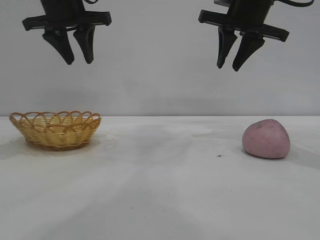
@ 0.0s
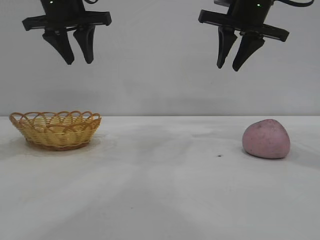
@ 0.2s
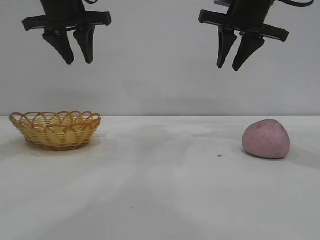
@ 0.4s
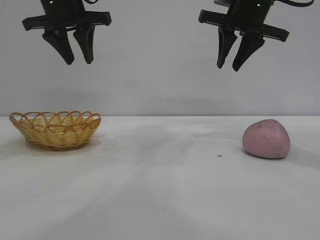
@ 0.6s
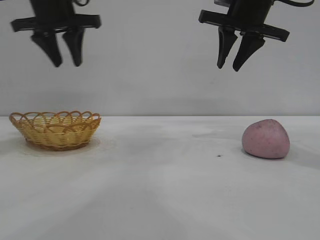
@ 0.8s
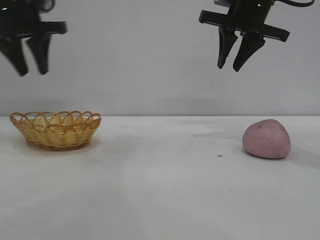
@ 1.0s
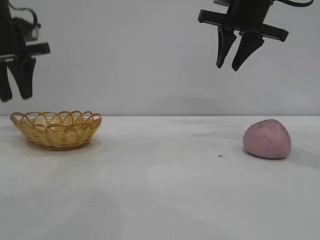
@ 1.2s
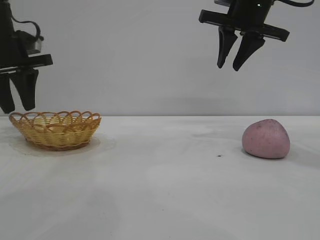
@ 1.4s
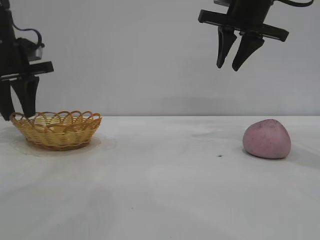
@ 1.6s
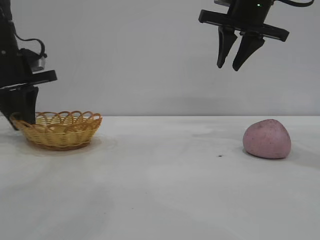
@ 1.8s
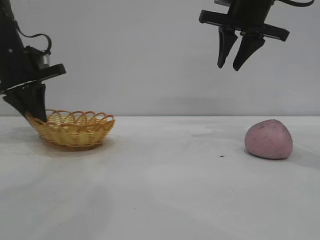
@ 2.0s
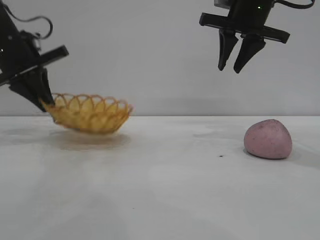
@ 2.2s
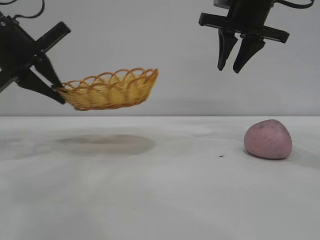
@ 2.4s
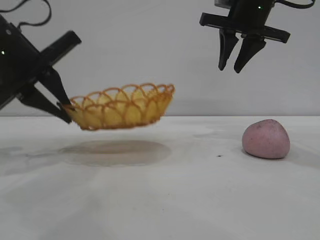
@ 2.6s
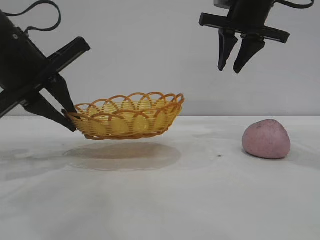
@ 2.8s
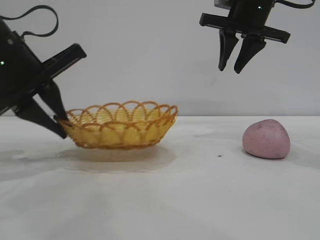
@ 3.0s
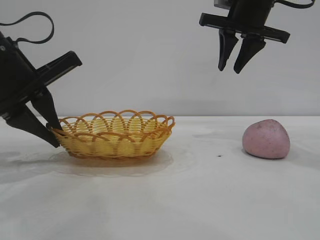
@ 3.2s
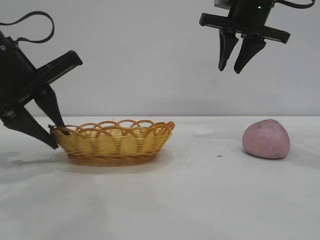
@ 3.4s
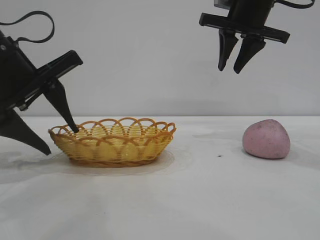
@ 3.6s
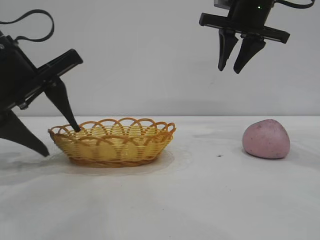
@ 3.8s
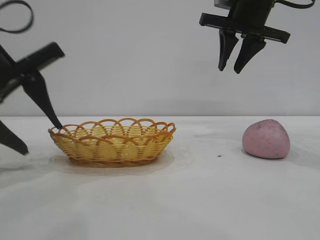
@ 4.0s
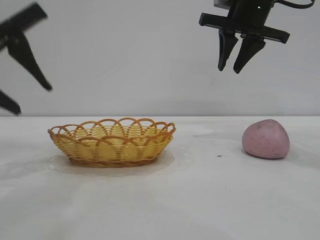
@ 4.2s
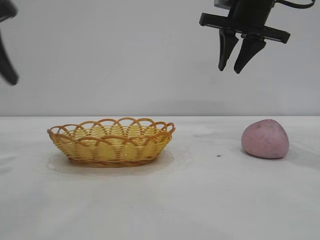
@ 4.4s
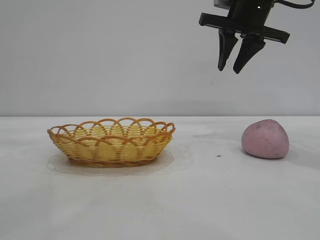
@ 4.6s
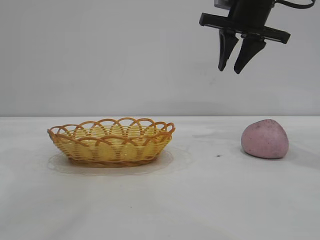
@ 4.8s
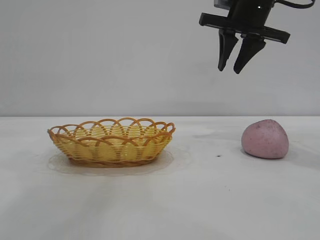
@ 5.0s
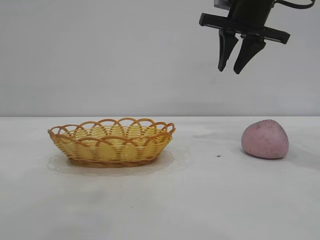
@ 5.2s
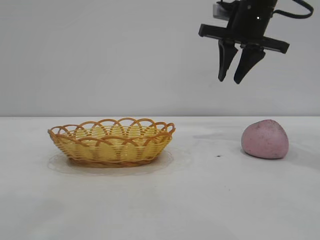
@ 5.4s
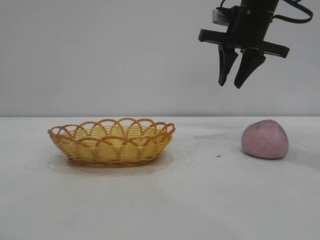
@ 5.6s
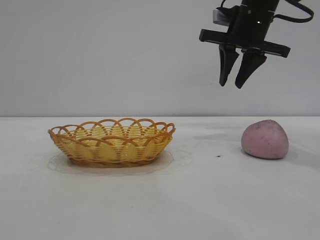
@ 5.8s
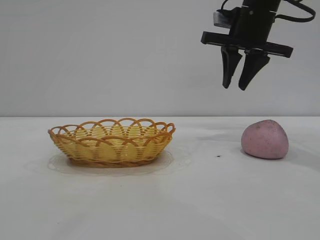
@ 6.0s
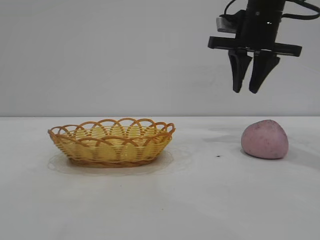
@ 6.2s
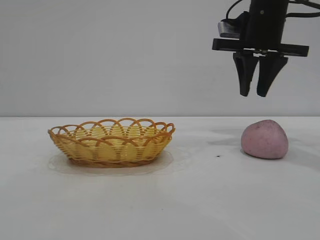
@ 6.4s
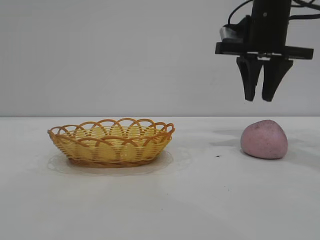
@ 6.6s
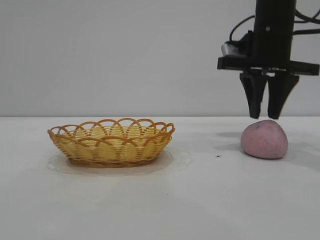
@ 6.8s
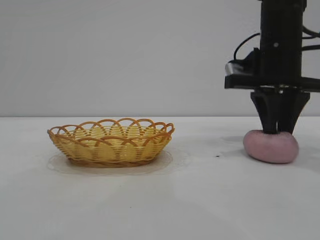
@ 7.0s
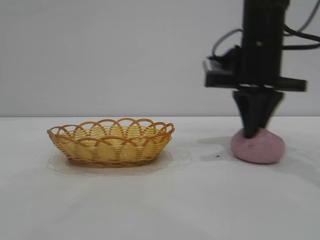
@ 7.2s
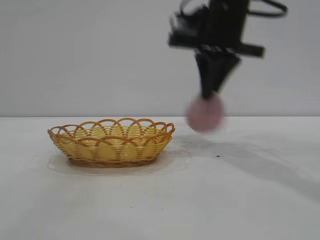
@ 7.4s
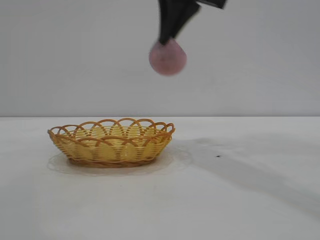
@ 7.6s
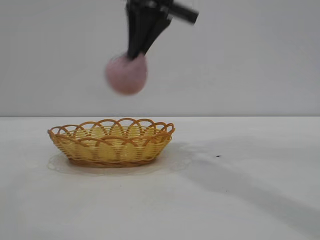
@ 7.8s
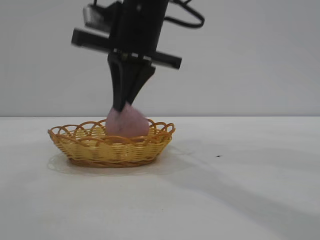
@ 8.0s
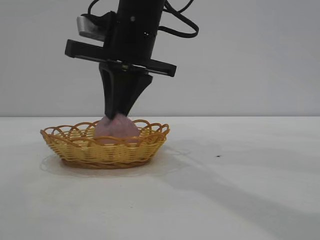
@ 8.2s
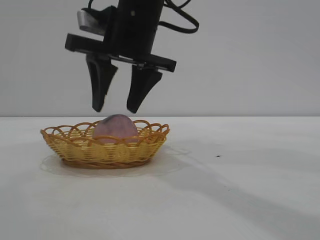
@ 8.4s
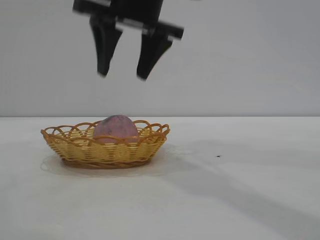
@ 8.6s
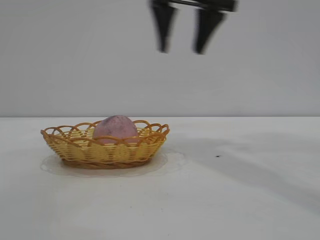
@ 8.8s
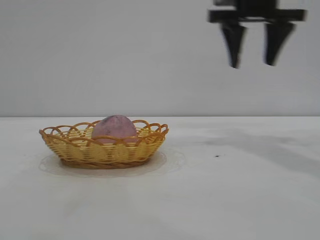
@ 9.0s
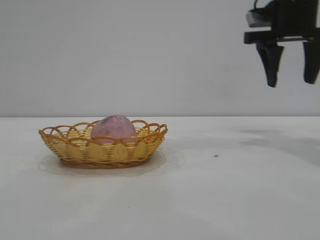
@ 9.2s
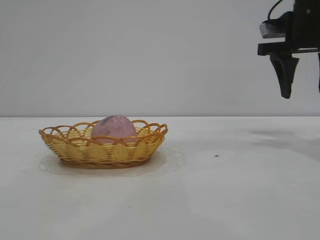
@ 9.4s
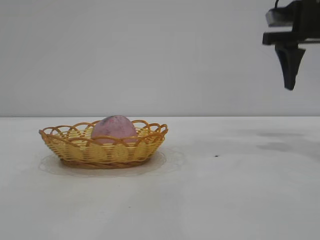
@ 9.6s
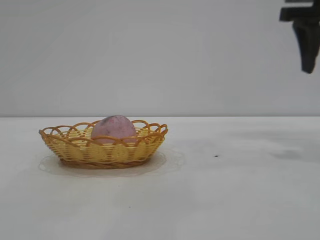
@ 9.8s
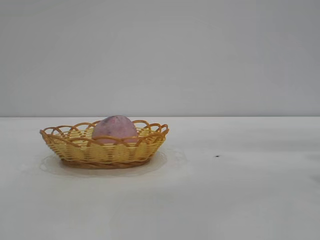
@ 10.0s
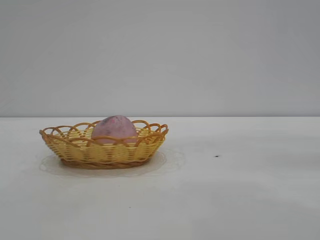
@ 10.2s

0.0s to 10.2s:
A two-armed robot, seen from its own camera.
Task of the whole recording: pick up the peach and put it into the basket.
Step, 0.0s to 4.2s: Move the basket to the center of view.
Step, 4.4s to 7.2s: Pick up the peach.
Step, 7.6s to 8.6s: place the peach into the basket.

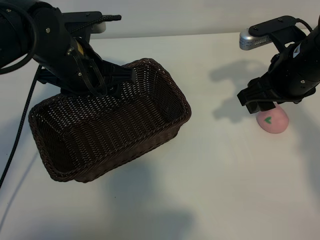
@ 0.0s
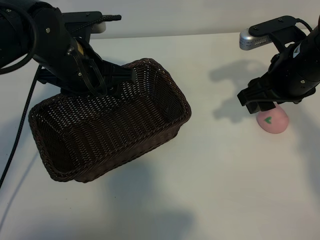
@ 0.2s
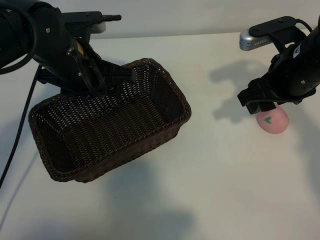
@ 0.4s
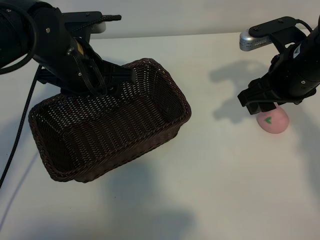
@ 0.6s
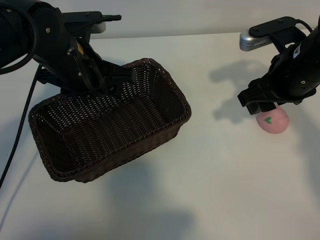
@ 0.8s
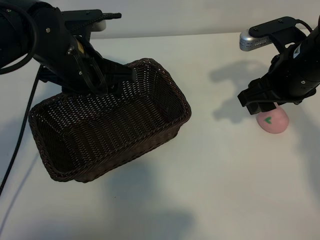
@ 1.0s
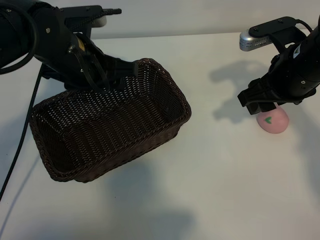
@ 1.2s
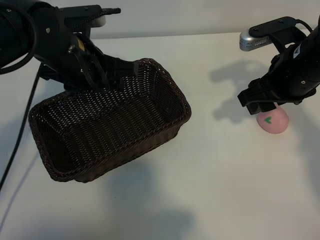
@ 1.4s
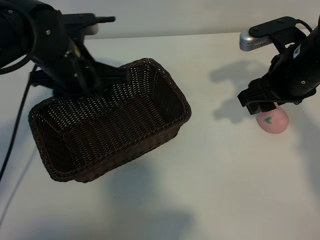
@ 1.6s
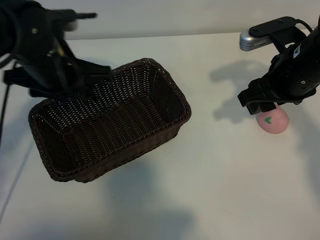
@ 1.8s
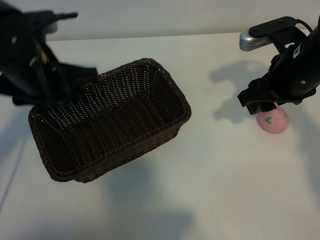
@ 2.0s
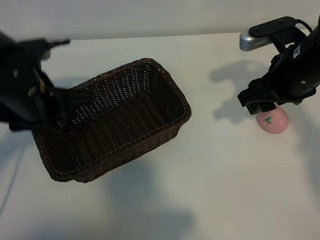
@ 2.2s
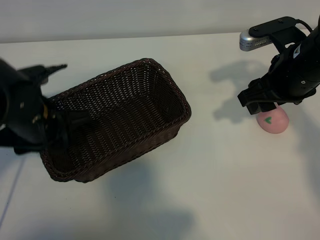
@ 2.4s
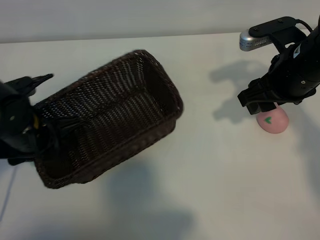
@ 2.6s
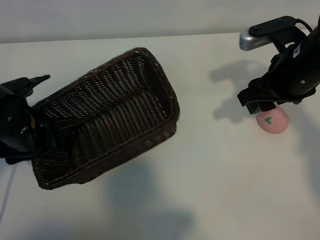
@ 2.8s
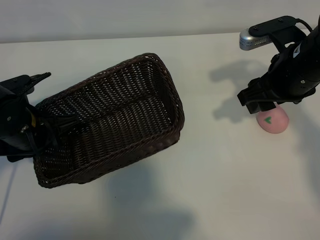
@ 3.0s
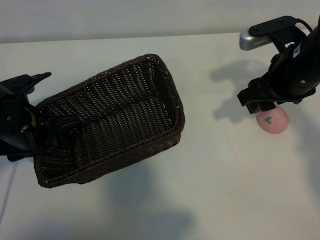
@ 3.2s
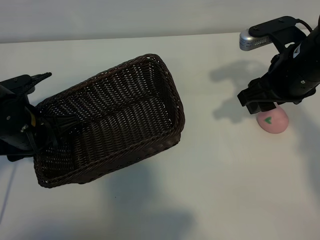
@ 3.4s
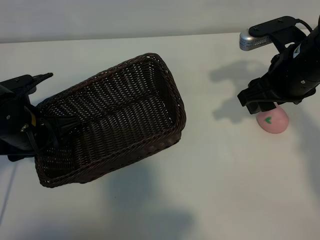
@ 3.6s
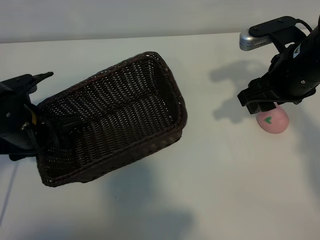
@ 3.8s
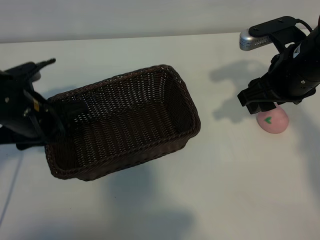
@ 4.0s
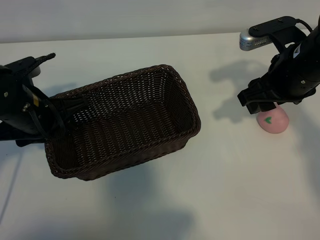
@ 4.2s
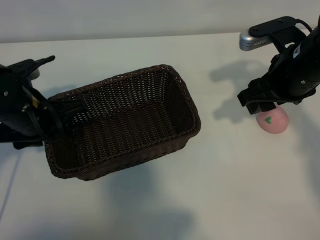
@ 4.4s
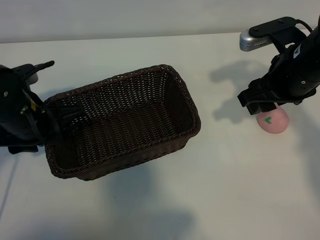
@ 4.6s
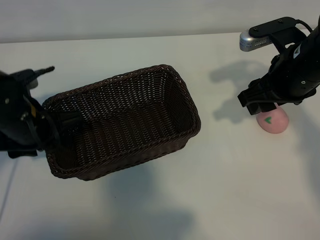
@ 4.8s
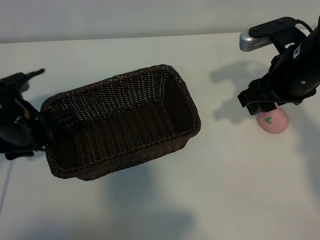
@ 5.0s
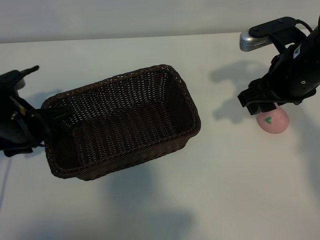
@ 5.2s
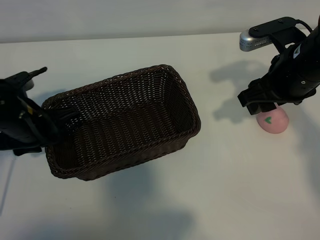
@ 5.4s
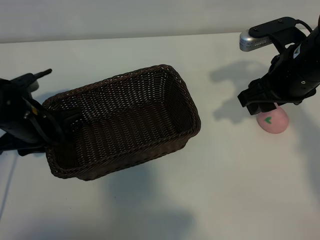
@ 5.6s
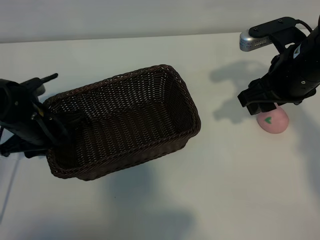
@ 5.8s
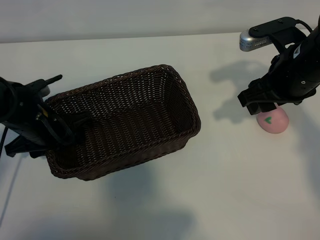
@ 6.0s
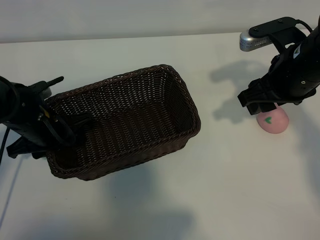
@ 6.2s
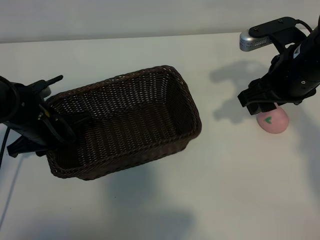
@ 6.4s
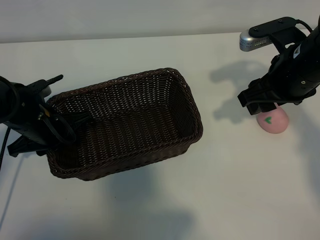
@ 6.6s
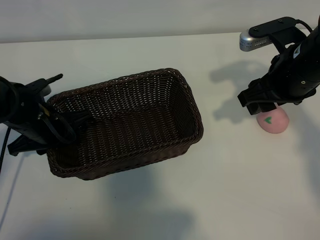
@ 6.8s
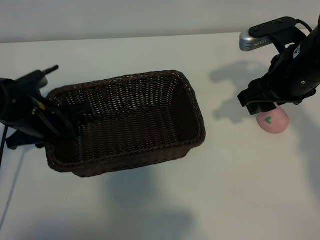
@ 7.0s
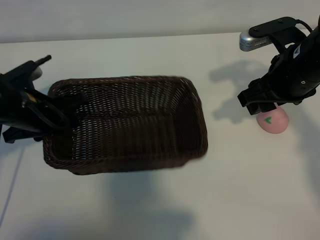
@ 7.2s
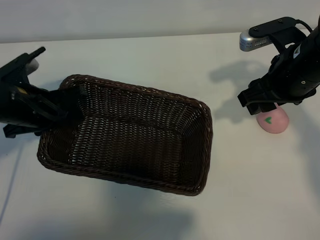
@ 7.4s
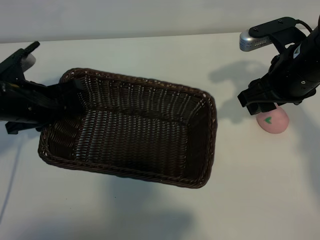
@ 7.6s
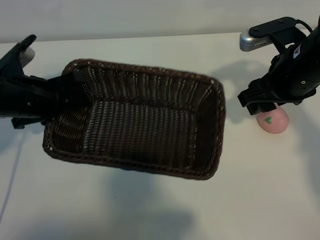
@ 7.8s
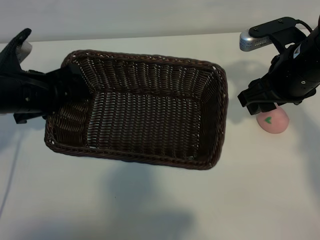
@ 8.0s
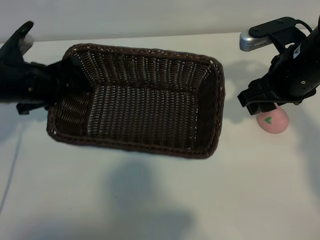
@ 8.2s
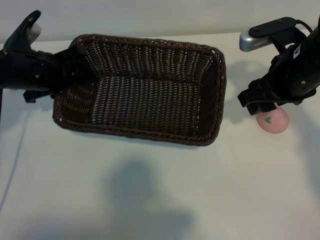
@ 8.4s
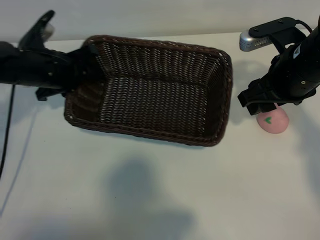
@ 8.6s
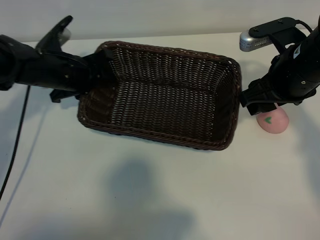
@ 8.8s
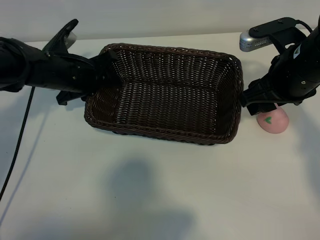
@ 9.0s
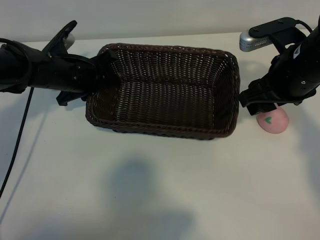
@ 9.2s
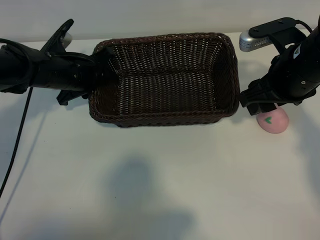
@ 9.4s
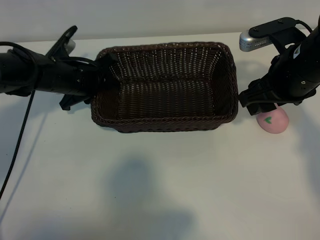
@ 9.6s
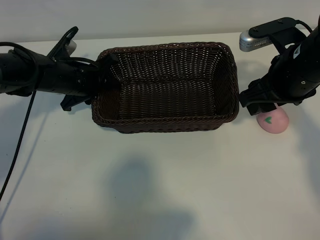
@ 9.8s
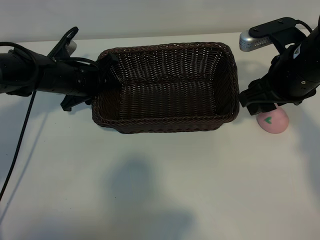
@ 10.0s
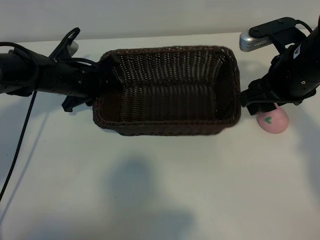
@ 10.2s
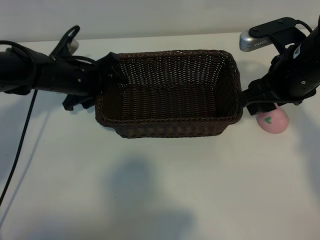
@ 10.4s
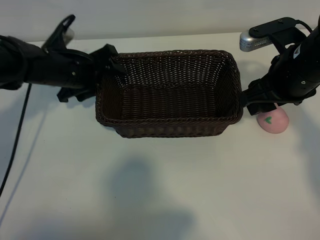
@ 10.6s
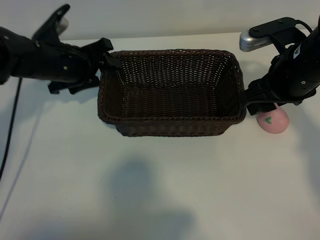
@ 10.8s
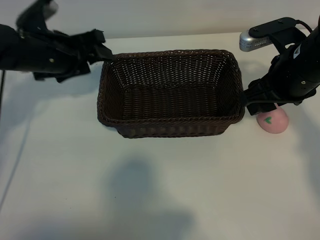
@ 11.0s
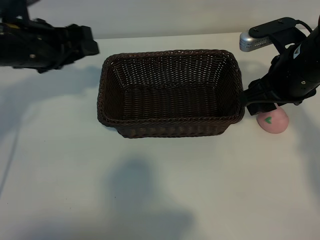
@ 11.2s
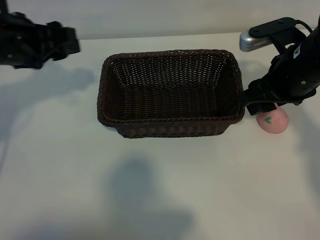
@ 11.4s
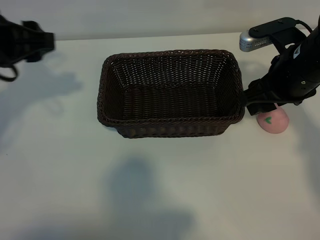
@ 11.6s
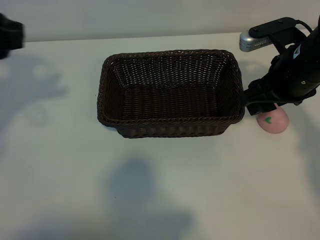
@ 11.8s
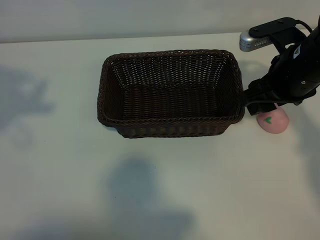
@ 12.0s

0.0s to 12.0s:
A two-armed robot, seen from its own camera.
Task of the whole recording: pick up the peach and put it into the basket.
Step, 0.8s to 6.6s: Grasp the basket with left gripper.
Step, 6.8s to 10.8s: Place the basket in the center of view with left gripper.

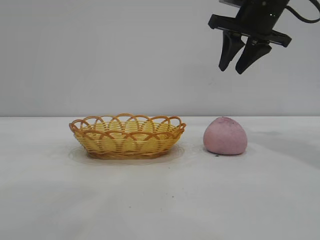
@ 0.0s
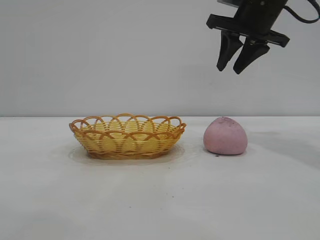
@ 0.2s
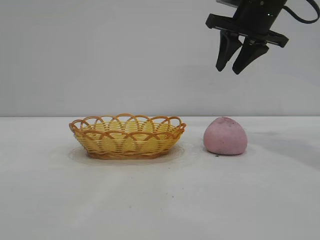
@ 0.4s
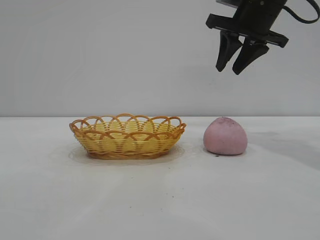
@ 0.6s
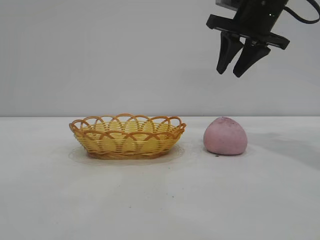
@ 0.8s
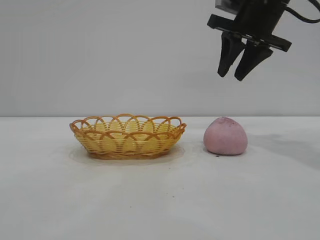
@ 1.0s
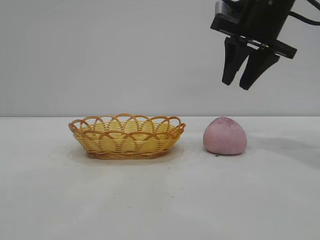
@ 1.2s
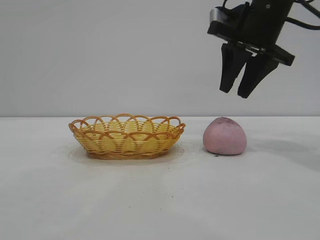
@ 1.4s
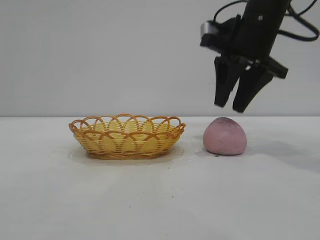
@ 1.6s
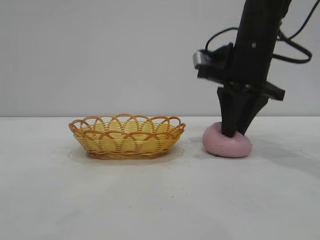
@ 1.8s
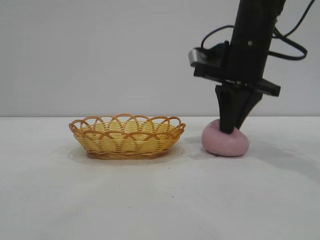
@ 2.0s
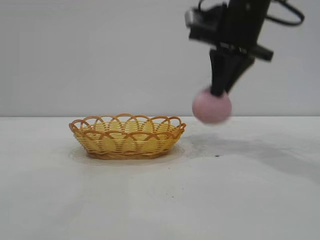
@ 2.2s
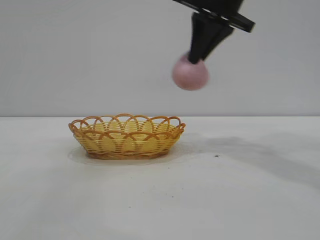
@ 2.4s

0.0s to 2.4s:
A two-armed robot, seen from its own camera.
Task of the whole recording: pick up the peach and put it into the basket.
Step, 0.0s to 2.2s: Pick up the peach.
